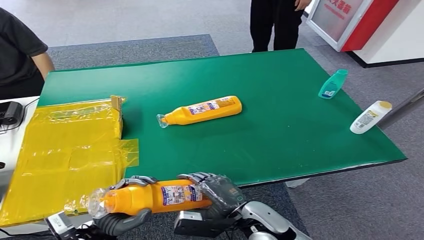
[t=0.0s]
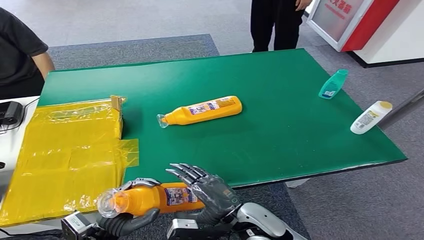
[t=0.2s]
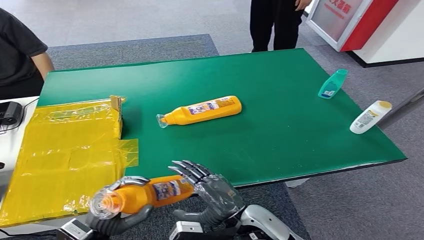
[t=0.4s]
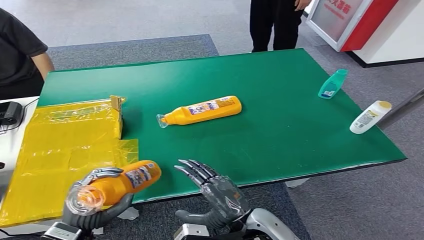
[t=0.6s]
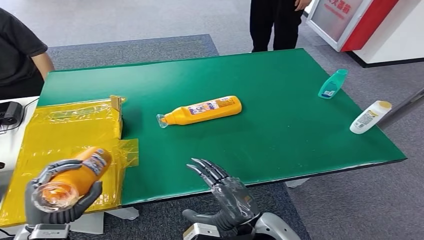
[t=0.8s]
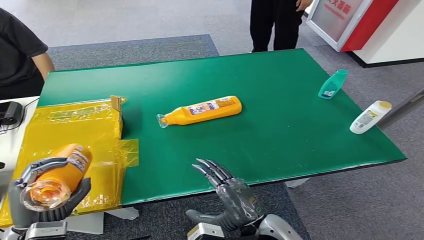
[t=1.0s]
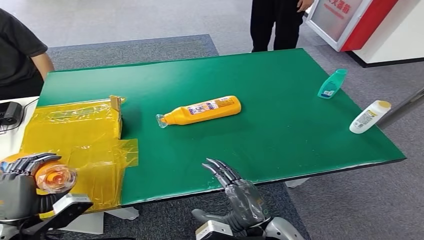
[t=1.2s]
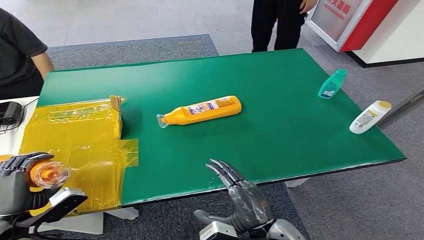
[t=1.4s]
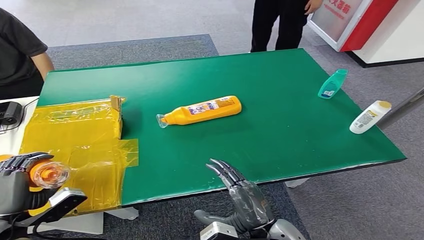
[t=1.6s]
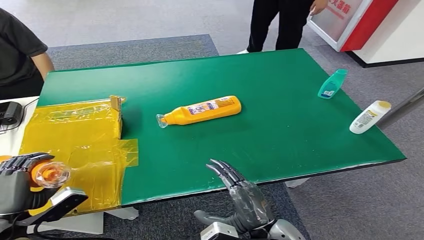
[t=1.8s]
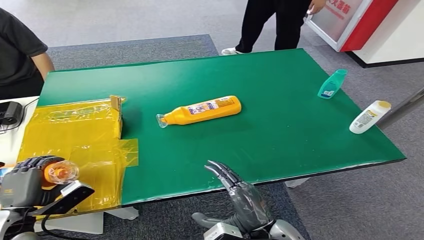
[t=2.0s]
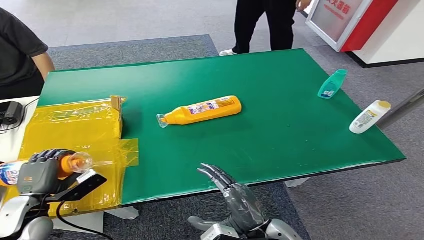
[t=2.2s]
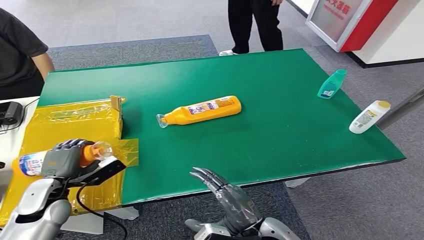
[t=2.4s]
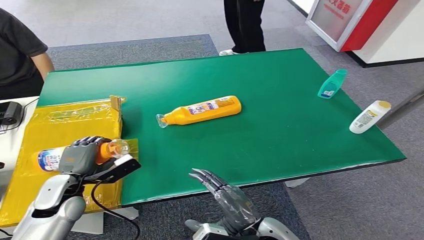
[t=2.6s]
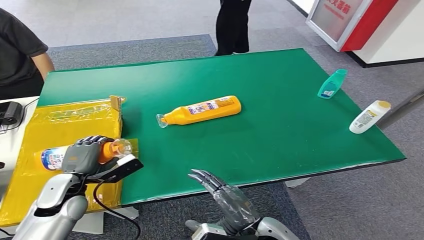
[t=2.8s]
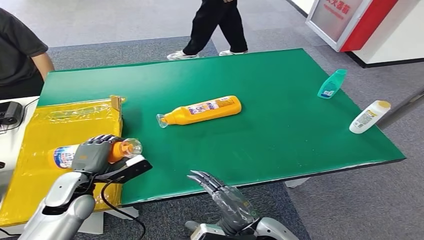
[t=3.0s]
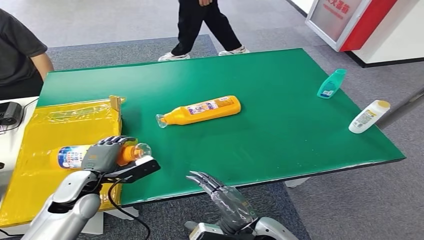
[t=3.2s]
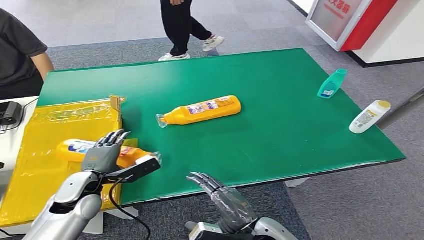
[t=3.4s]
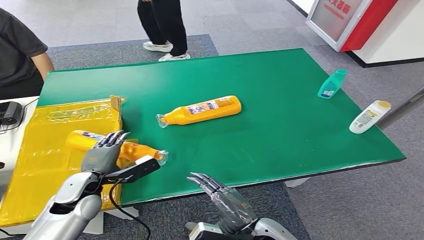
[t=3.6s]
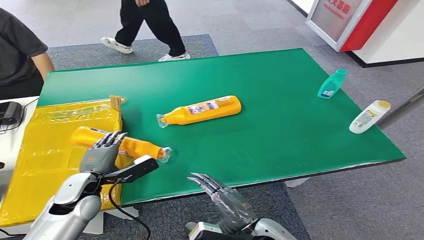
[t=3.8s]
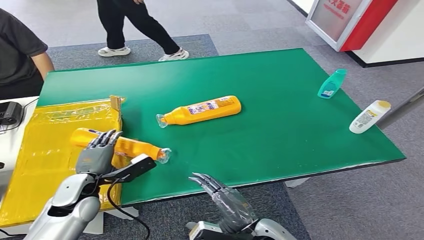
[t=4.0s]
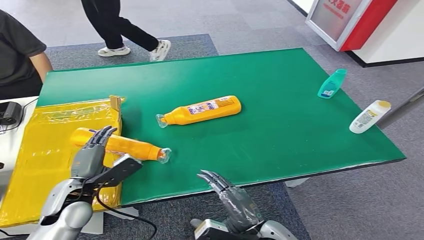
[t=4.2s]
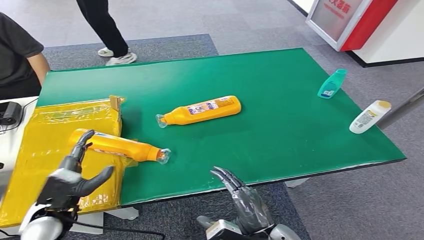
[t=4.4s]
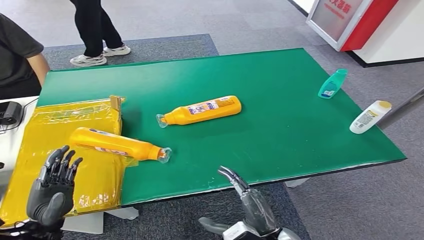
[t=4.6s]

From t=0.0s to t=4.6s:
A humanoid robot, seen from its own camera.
Step, from t=0.0s to t=4.6s: Turn the bottle to the front side.
From t=0.0s to t=1.6s: The left hand moves to the left and upward, roughly 15 cm; the right hand heads backward, covering about 5 cm.
From t=1.6s to t=3.0s: The left hand travels forward and to the right by some 15 cm.
From t=3.0s to t=4.6s: The left hand heads backward, covering roughly 10 cm.

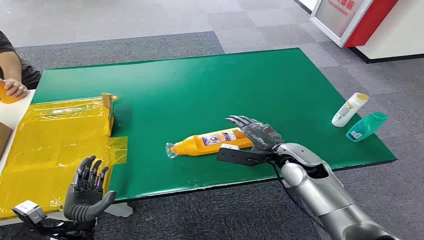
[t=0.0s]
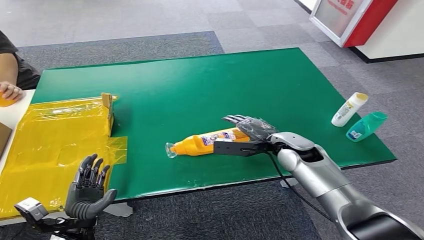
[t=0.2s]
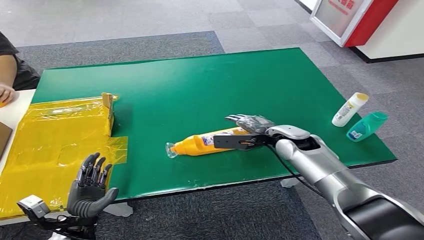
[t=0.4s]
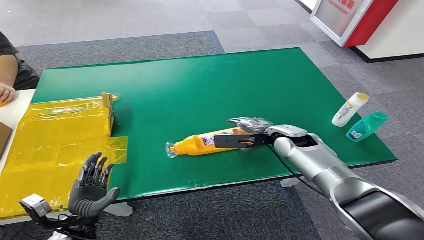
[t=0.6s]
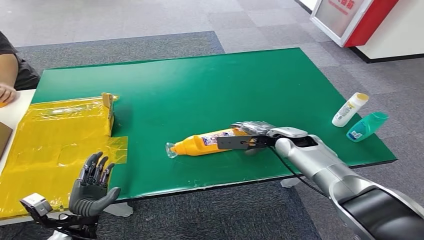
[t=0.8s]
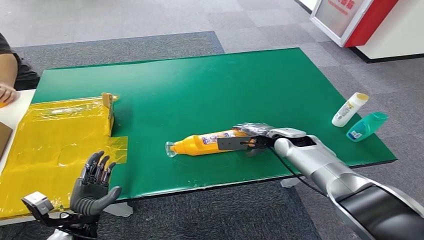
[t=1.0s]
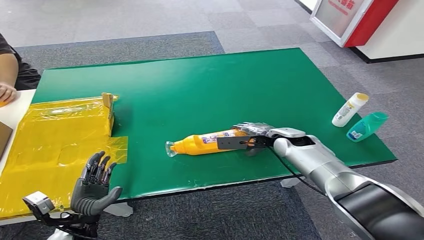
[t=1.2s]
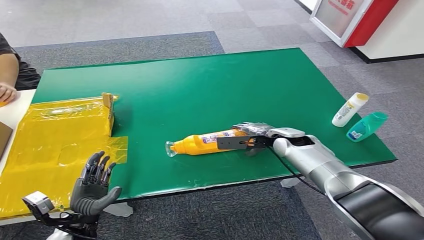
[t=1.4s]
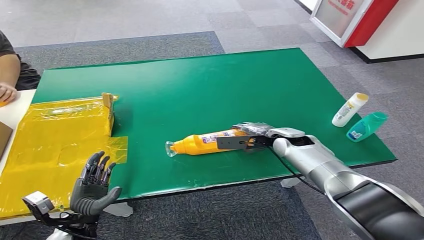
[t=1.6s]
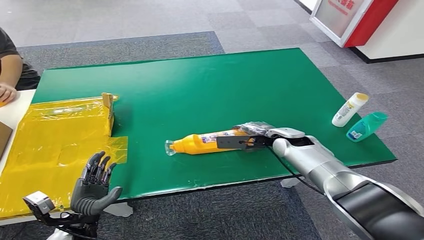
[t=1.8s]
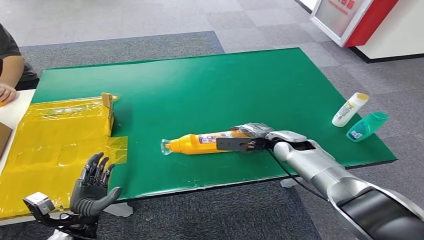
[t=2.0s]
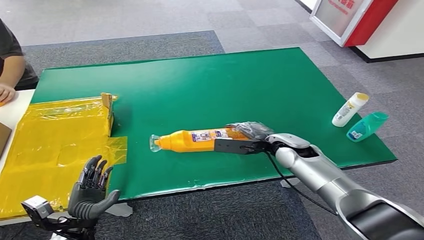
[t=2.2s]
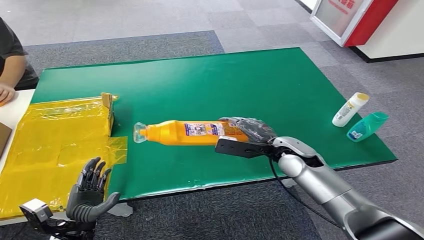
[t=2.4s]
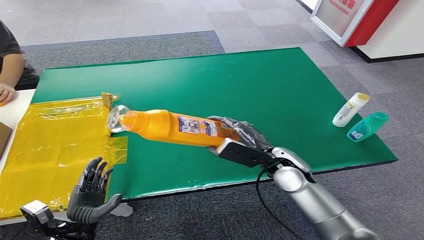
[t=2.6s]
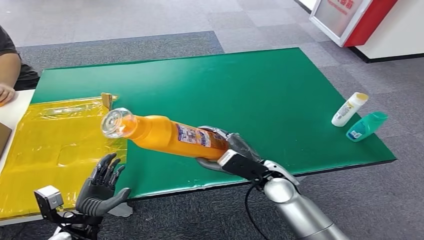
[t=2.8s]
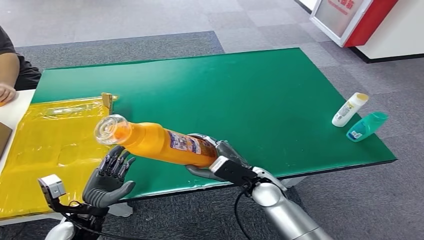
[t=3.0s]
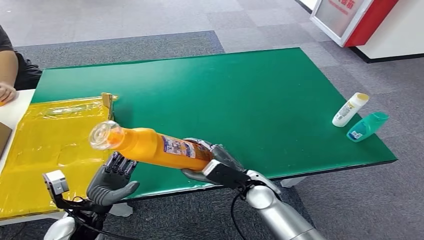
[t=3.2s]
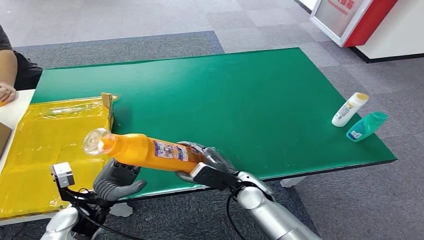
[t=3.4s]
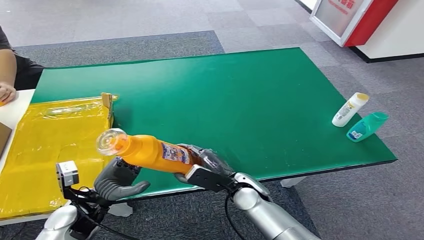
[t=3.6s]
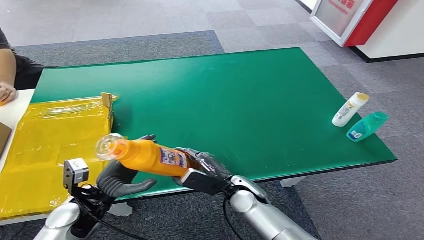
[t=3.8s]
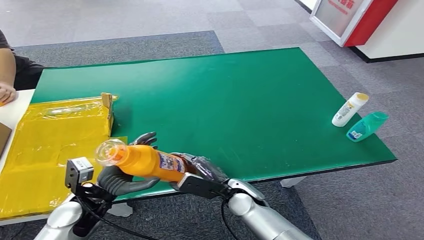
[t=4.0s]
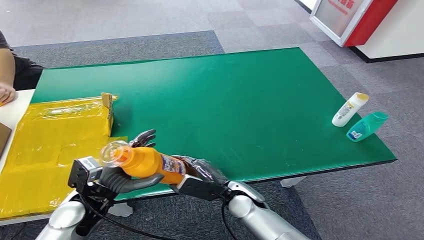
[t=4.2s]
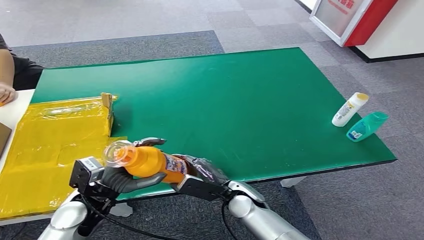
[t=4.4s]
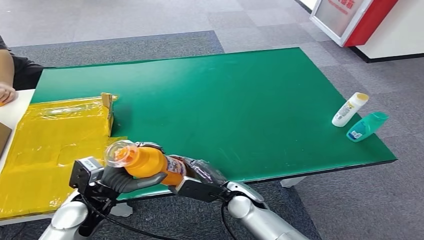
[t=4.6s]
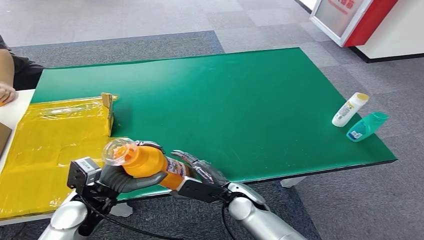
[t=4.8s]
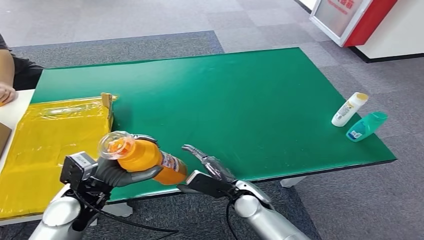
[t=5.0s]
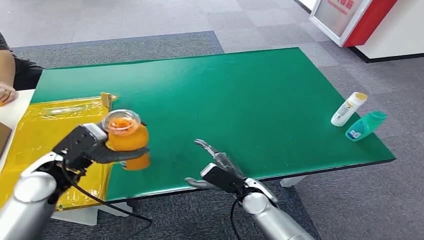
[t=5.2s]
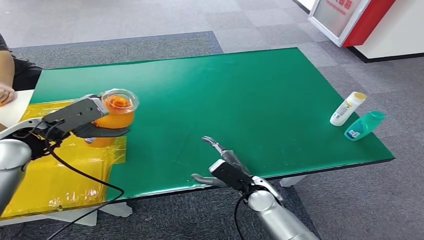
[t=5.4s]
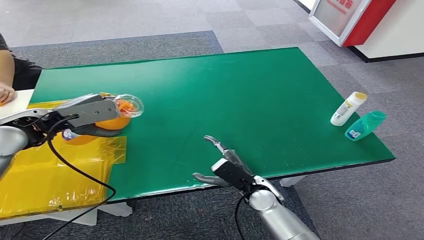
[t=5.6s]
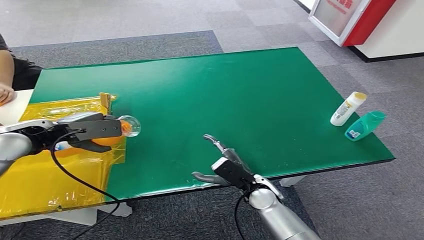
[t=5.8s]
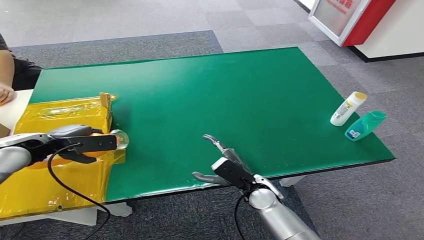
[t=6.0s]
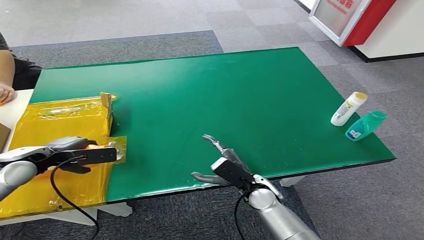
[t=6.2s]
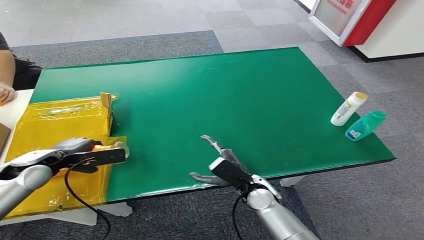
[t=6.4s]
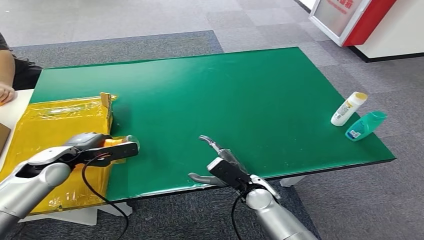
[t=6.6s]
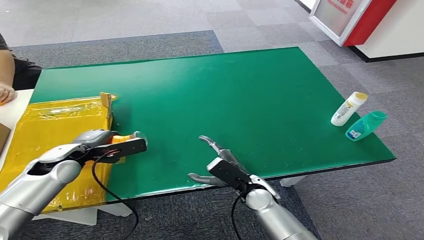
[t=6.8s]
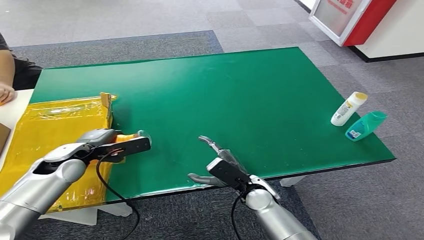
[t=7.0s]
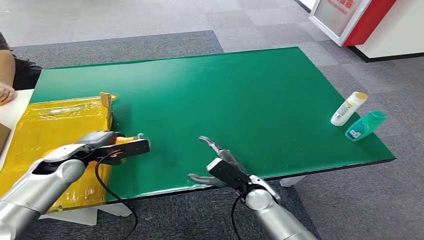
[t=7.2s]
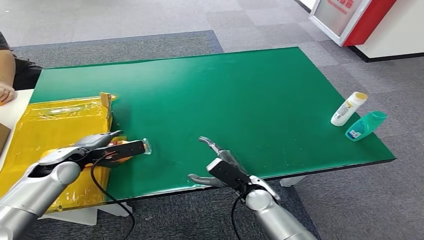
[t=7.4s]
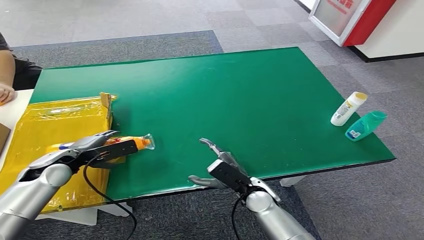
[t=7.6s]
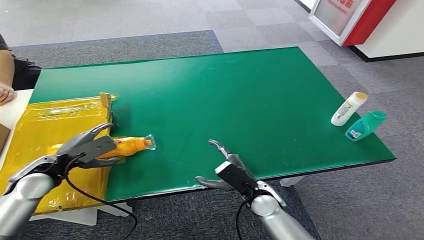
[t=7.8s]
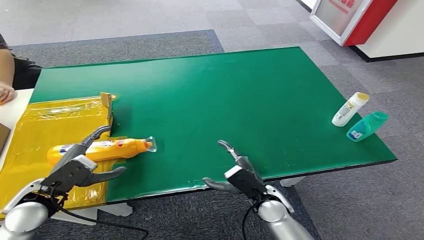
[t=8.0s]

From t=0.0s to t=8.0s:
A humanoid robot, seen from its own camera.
Step, from t=0.0s to t=2.6s: Pick up the bottle from the table.
Step, from t=2.8s to t=8.0s: Turn the bottle to the front side.
From t=3.2s to t=4.8s: The left hand moves upward, roughly 5 cm. Meanwhile the right hand changes place by some 5 cm.
From t=4.8s to t=6.4s: The left hand travels to the left and forward by some 15 cm, and goes upward and returns, approximately 15 cm each way.
From t=6.4s to t=8.0s: The left hand is displaced backward by some 10 cm.
